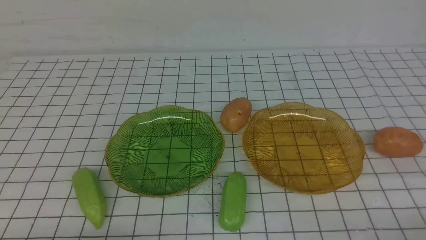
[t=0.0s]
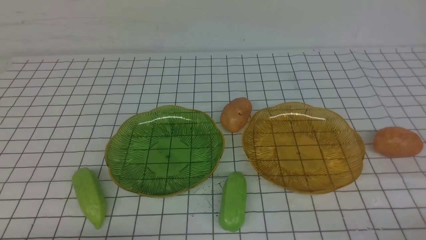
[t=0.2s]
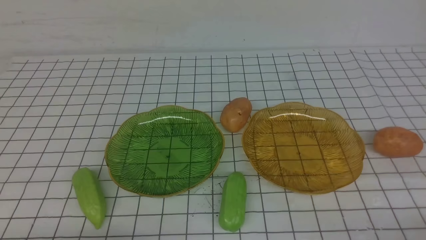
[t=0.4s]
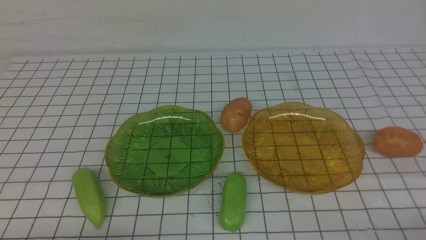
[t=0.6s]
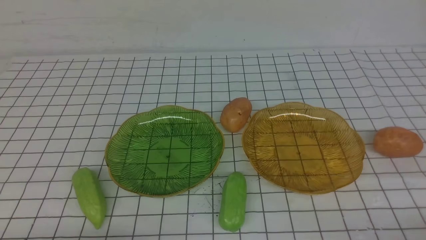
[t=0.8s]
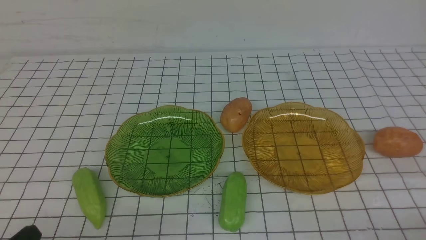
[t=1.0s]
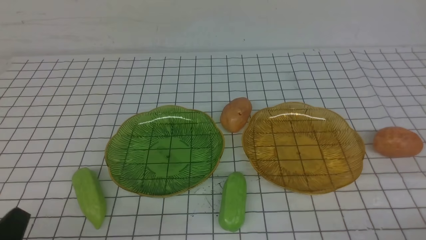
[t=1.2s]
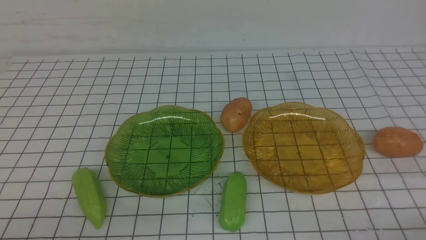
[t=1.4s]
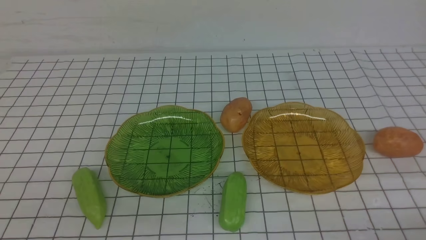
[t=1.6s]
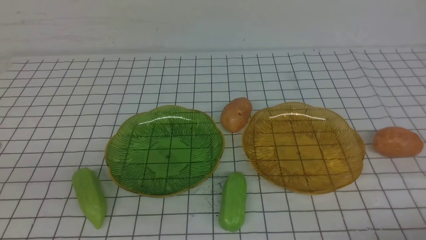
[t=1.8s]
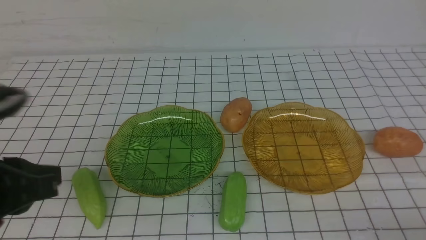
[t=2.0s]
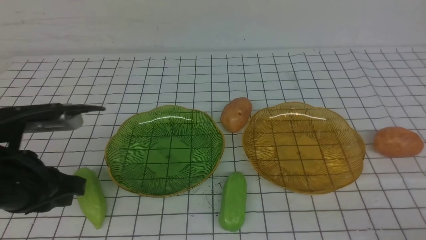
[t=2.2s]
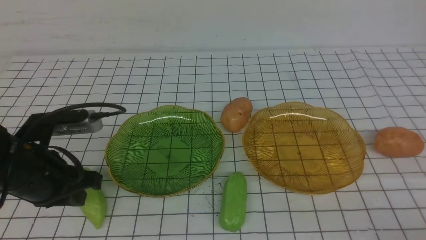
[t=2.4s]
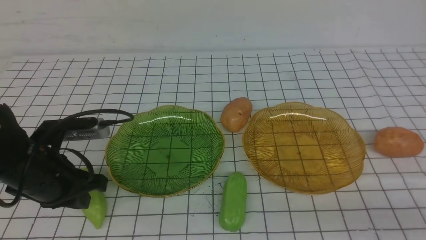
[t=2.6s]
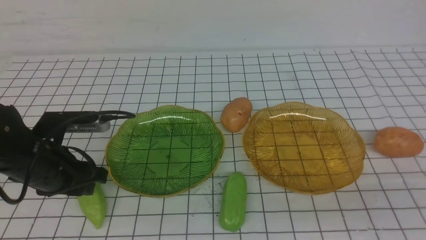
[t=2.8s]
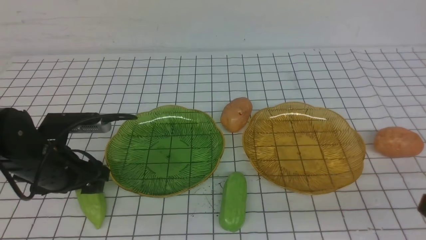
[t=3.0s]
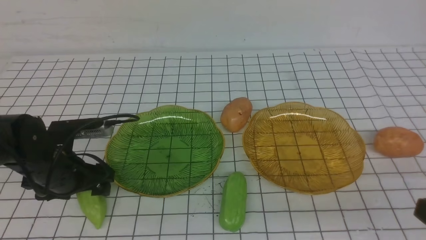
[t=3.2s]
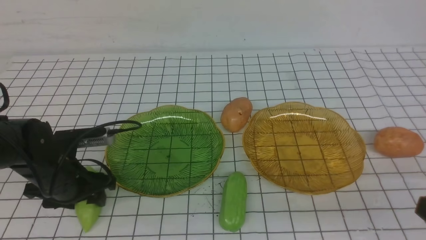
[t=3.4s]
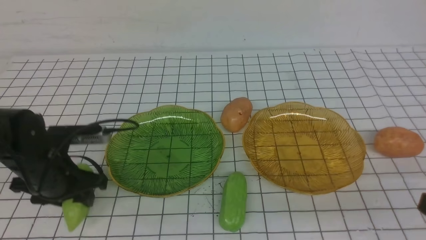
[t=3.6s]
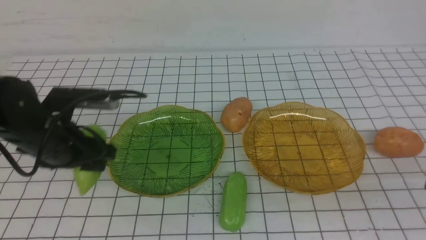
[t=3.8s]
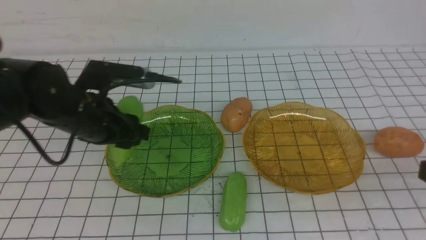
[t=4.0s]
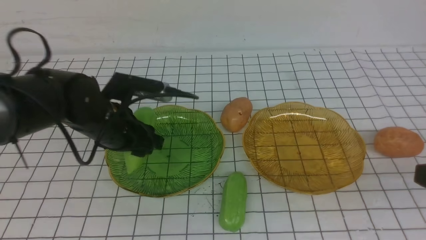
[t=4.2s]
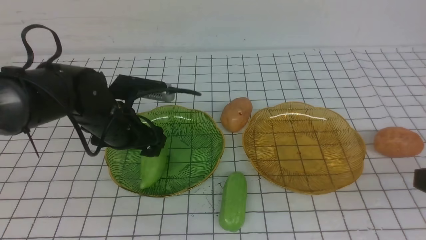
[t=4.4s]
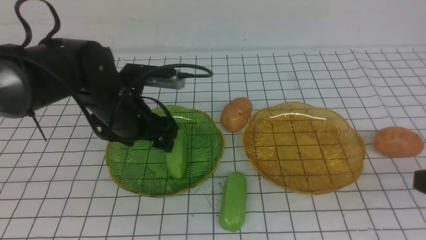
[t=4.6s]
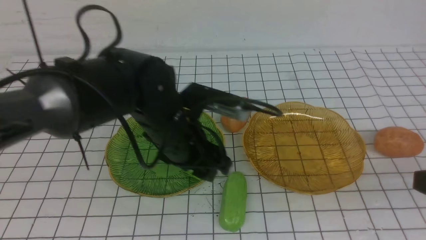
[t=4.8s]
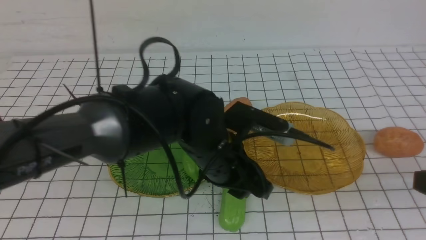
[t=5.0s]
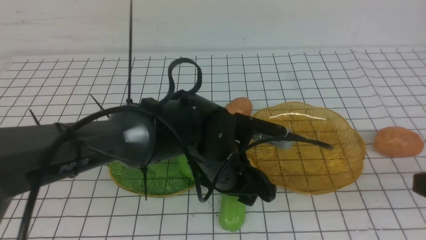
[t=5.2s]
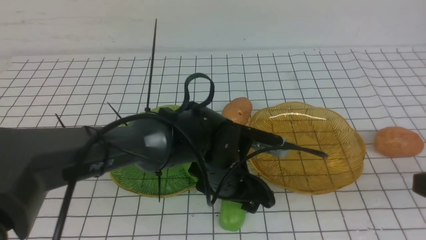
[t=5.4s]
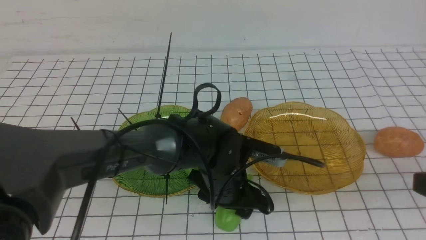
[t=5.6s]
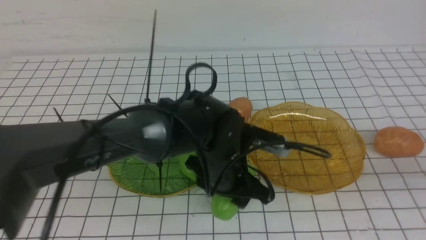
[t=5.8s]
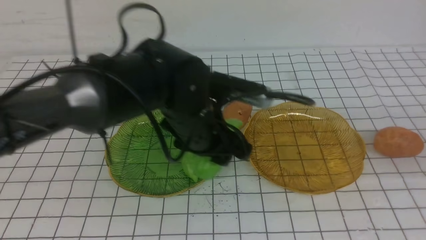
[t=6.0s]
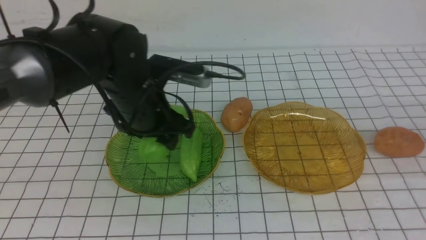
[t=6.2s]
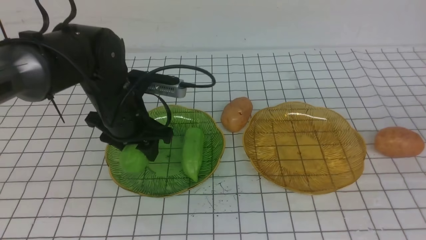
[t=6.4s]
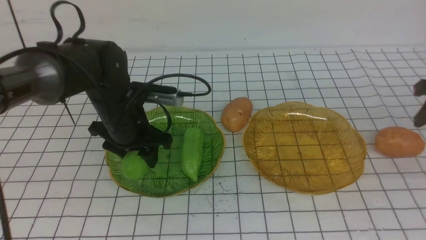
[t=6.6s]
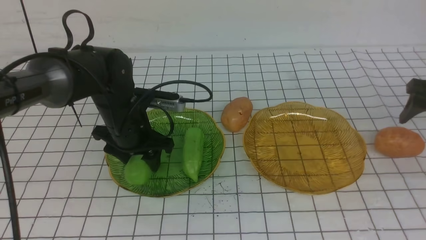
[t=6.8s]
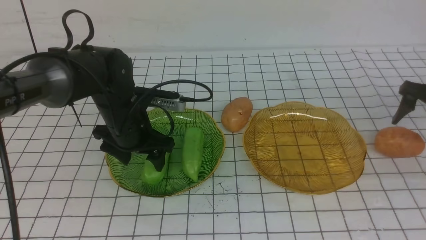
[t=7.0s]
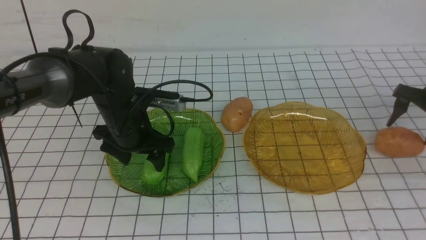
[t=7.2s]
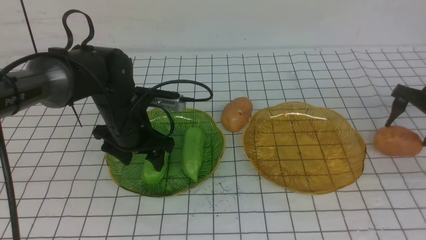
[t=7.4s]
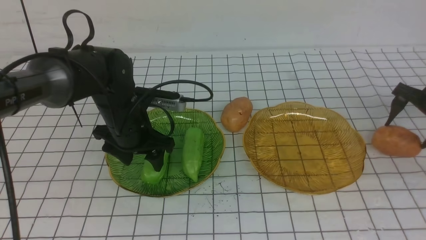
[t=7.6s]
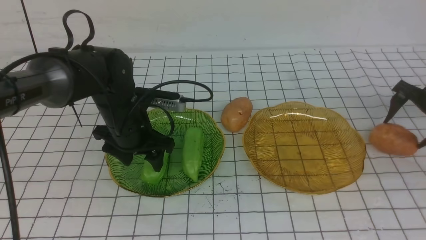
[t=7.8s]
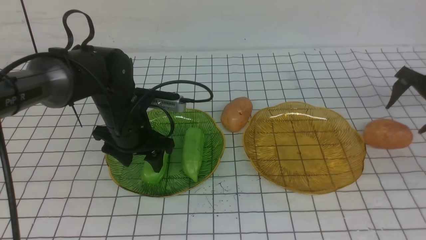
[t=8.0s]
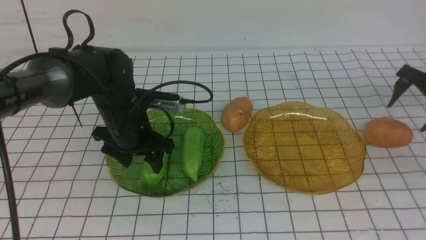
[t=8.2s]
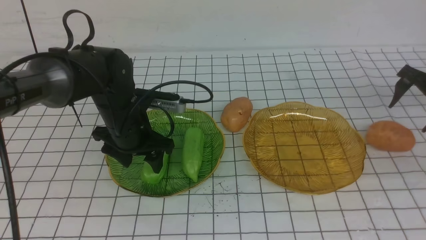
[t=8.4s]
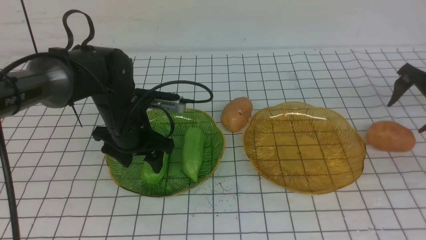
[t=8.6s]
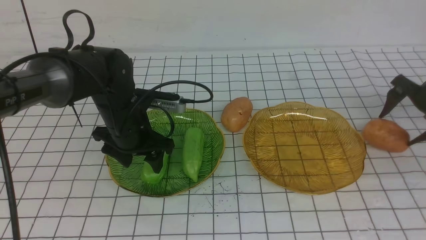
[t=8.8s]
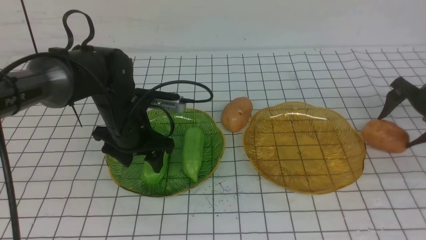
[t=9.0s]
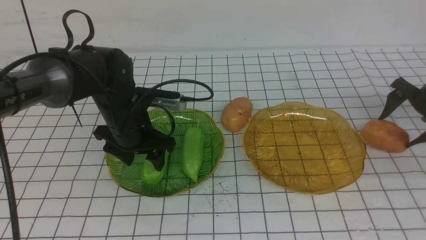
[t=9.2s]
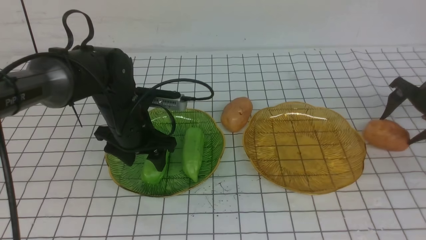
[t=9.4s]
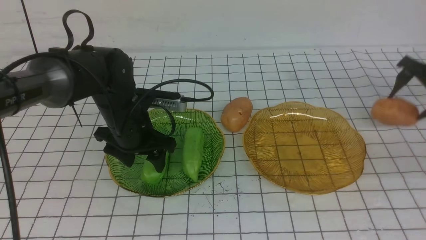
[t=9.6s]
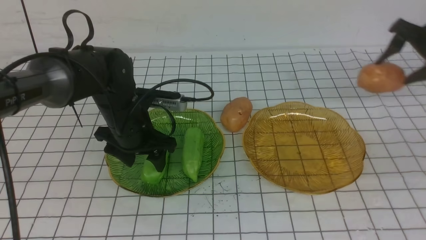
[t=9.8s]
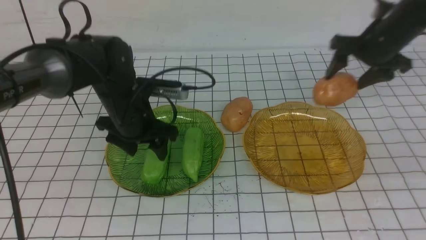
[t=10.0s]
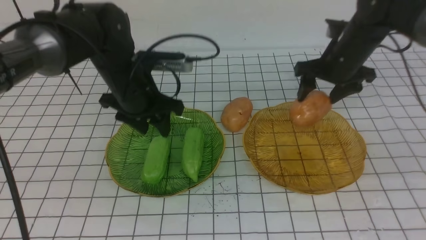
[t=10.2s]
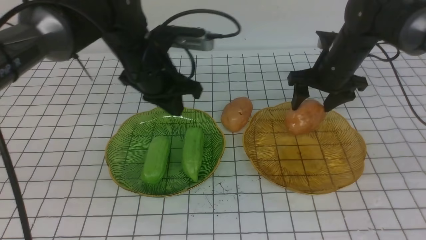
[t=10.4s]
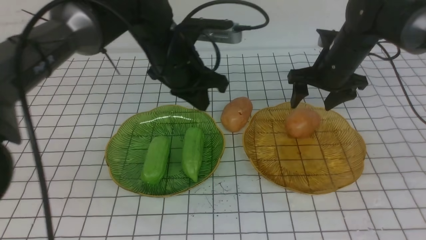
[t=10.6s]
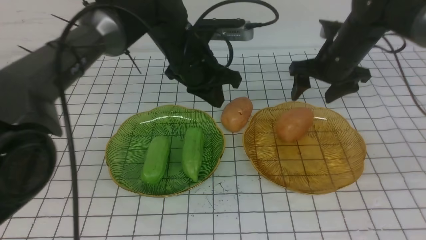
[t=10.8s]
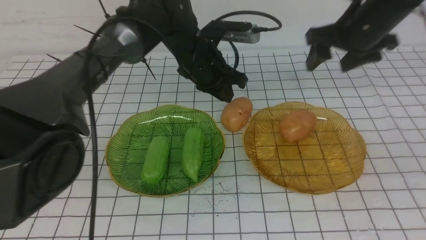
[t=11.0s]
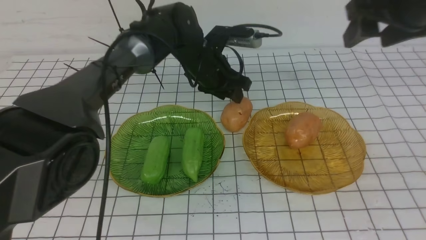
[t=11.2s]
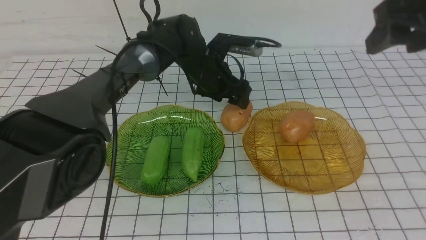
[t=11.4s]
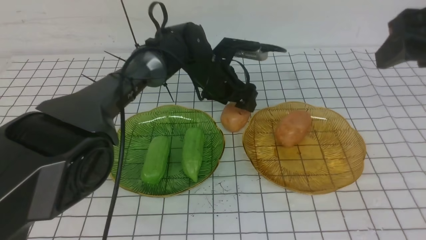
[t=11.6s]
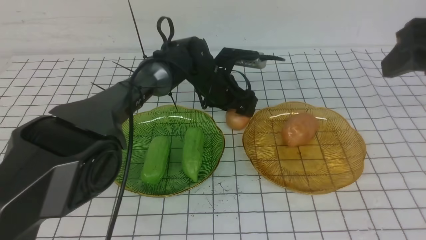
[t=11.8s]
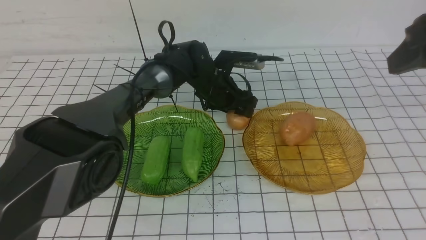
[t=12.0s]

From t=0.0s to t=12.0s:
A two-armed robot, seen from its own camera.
Step, from t=0.0s to t=6.8s: use the left arm to grab a chayote and put it into the left plate.
Step, from t=7.0s to t=10.6s: Grab a potato with your right arm and put it on the right plate.
From t=1.6s to t=3.0s: The left gripper goes some 20 cm forward, and opens up.
From t=3.0s to t=4.4s: The right gripper is displaced forward by about 5 cm. The left gripper goes roughly 10 cm to the right and forward.
From t=4.4s to t=6.0s: The left gripper heads to the right, covering roughly 15 cm, while the right gripper changes place by about 5 cm.
From t=6.0s to t=7.6s: The left gripper heads to the left and forward, covering about 15 cm. Meanwhile the right gripper moves forward and downward, about 30 cm, and opens up.
From t=7.6s to t=9.0s: The grippers move only a little.
From t=9.0s to t=10.4s: The left gripper shifts some 5 cm upward, and closes. The right gripper heads to the left, covering approximately 20 cm.
From t=10.4s to t=12.0s: The right gripper shifts about 25 cm backward and upward. The left gripper shifts some 20 cm to the right, forward and downward, and opens its fingers.

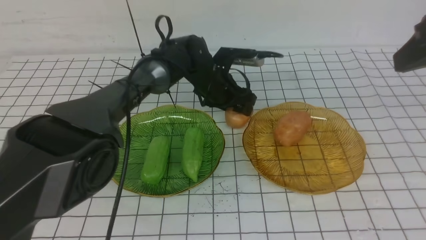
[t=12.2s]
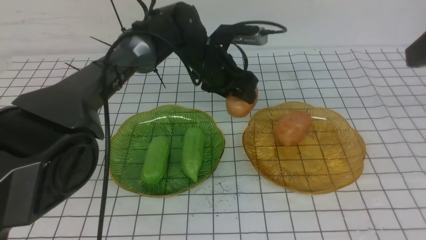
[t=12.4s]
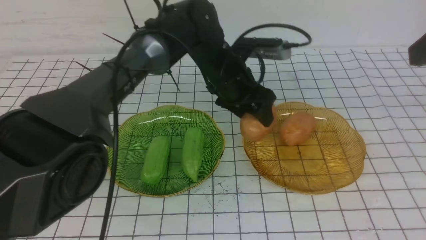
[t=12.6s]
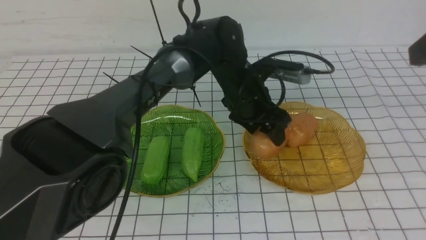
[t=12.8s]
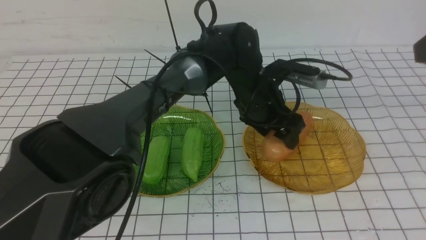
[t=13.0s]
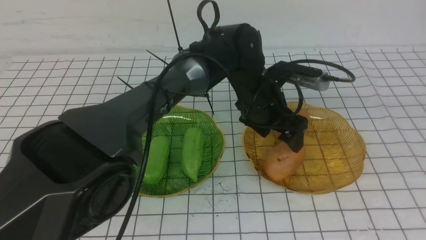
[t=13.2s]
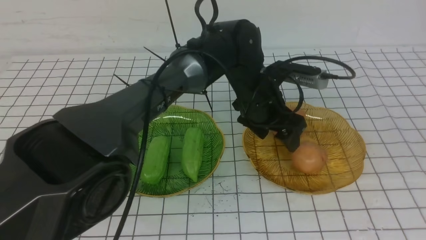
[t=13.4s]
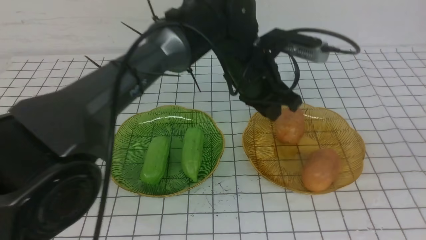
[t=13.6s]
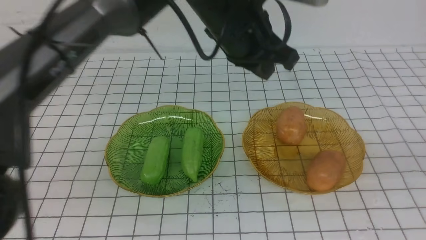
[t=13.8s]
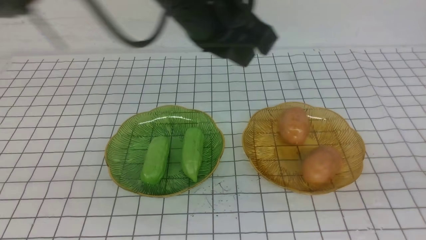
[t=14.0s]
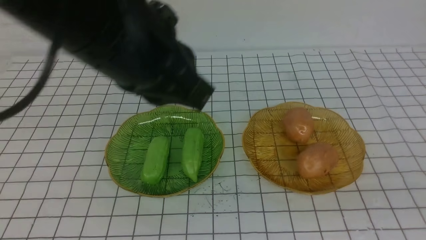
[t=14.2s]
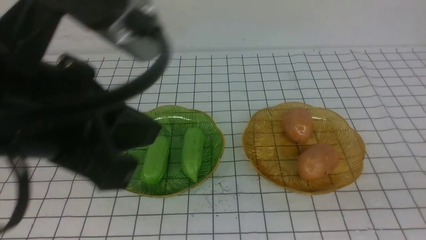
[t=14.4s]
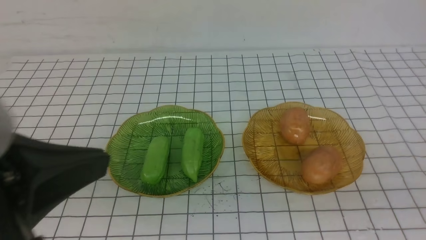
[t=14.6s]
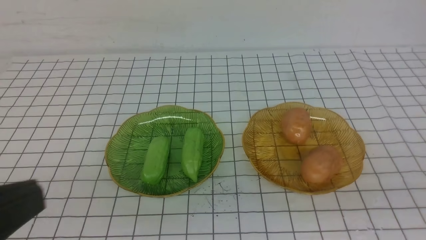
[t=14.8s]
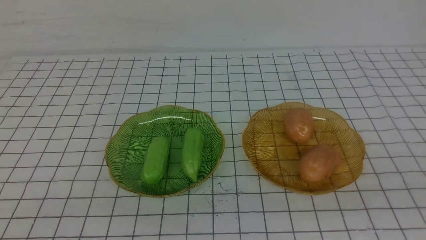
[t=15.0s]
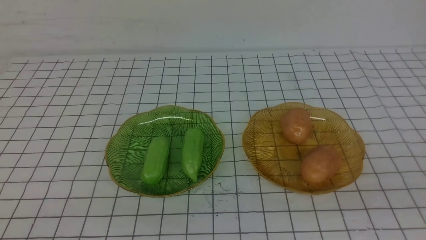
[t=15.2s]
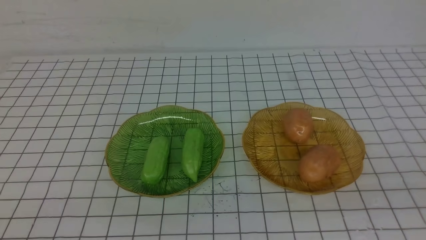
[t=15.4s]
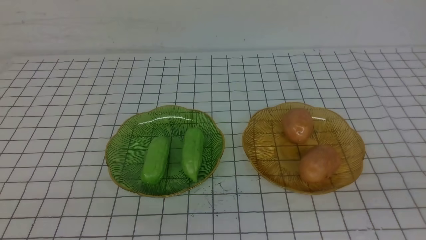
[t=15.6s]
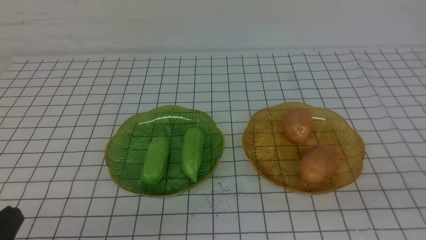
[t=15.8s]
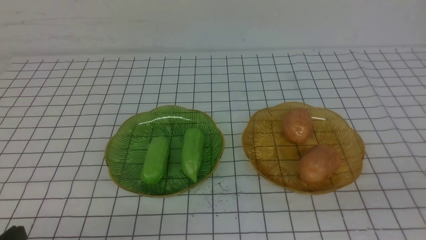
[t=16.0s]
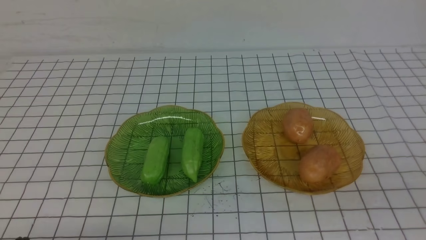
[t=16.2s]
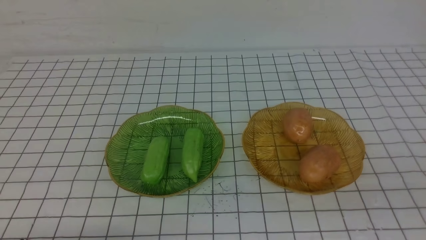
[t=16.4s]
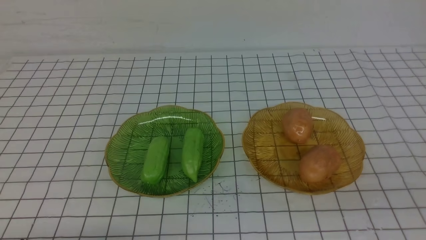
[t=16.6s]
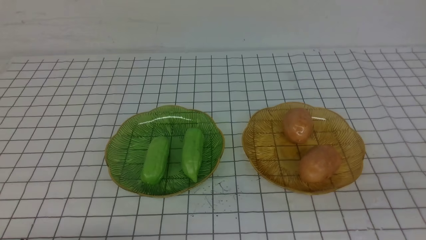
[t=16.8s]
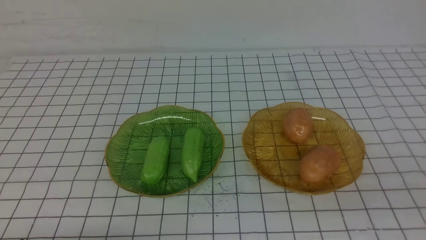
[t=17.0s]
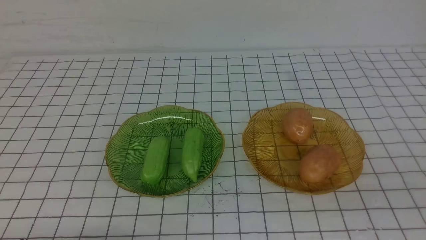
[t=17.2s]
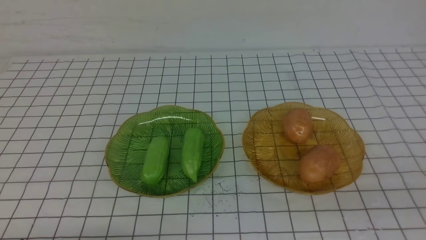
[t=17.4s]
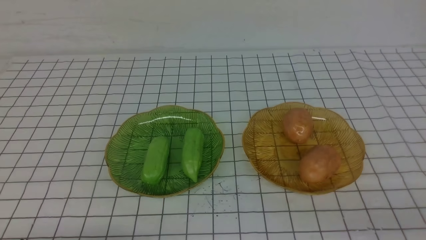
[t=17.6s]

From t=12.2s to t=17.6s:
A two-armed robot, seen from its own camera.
From t=12.2s to t=13.6s: The right gripper is displaced backward by some 15 cm, and closes its fingers. The left gripper goes about 15 cm backward, upward and to the right.
From t=13.6s to t=15.0s: The right gripper travels downward by some 10 cm, while the left gripper heads backward and to the left, covering some 50 cm, and closes up.
